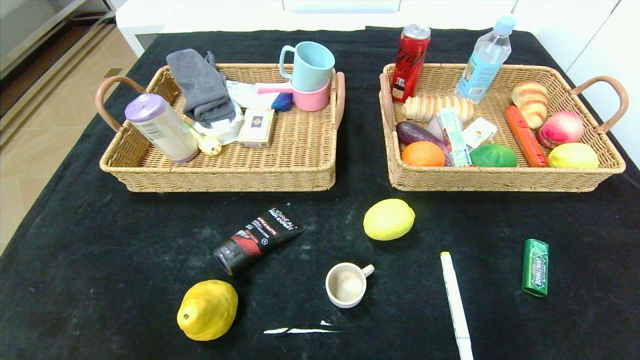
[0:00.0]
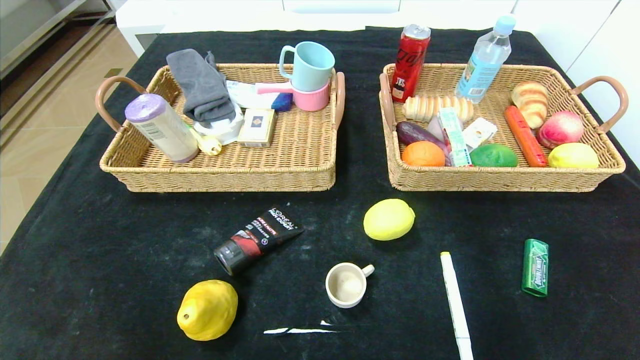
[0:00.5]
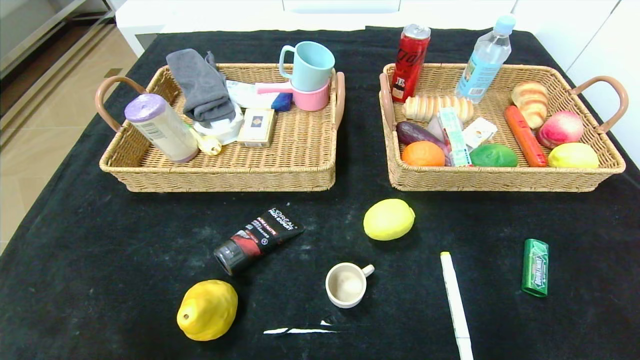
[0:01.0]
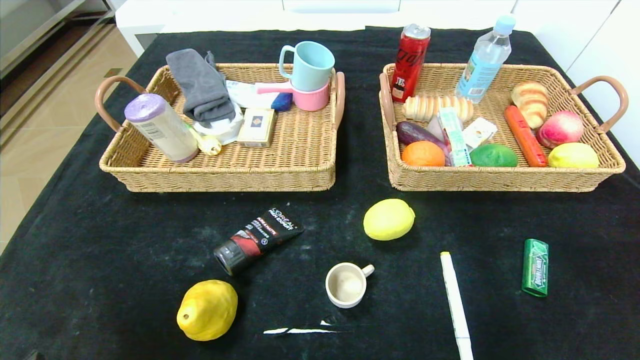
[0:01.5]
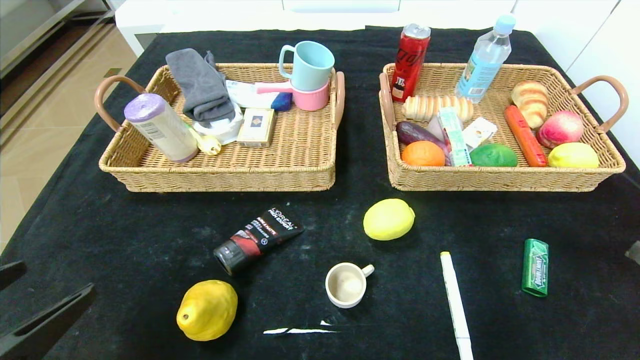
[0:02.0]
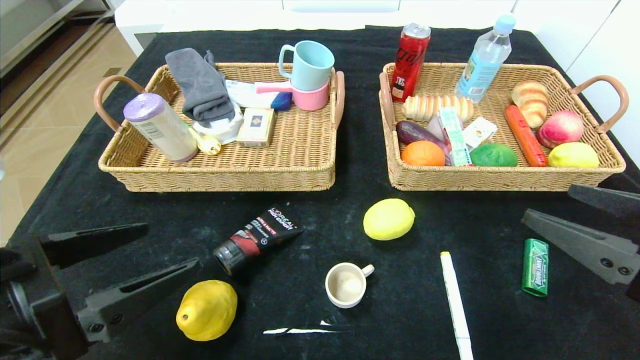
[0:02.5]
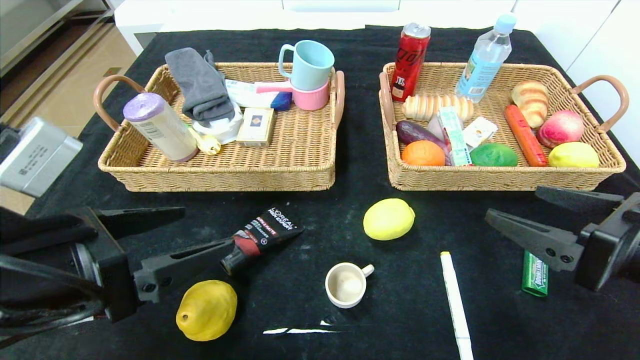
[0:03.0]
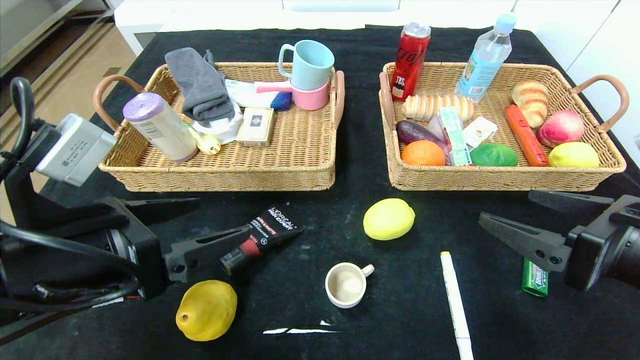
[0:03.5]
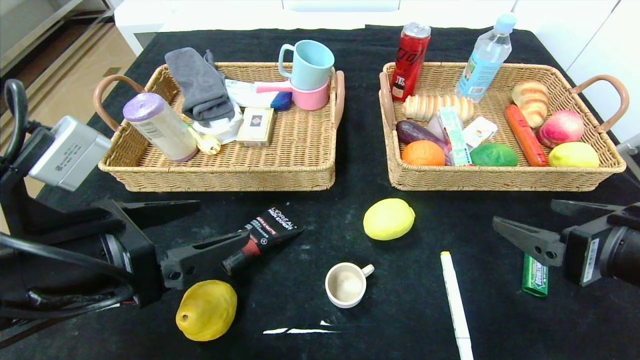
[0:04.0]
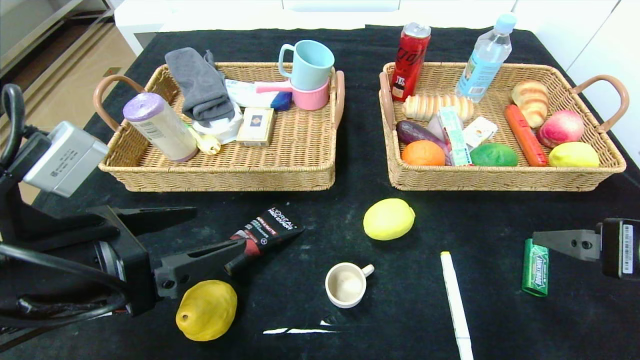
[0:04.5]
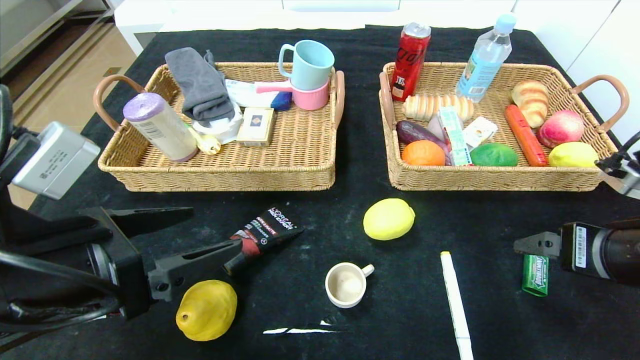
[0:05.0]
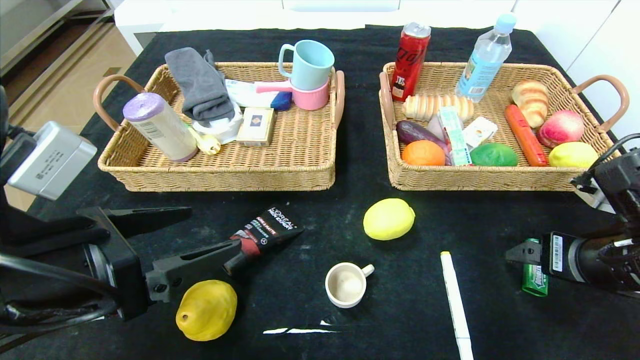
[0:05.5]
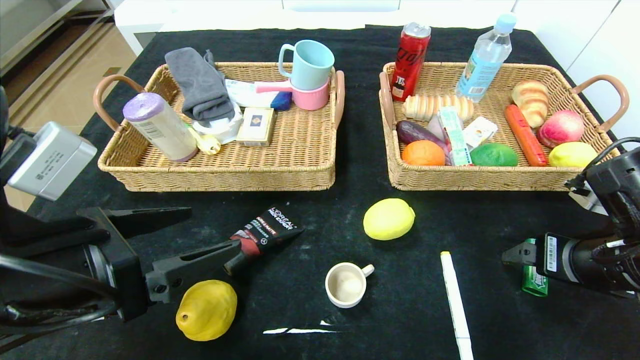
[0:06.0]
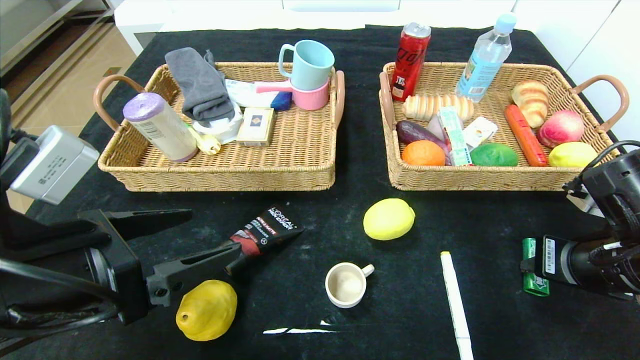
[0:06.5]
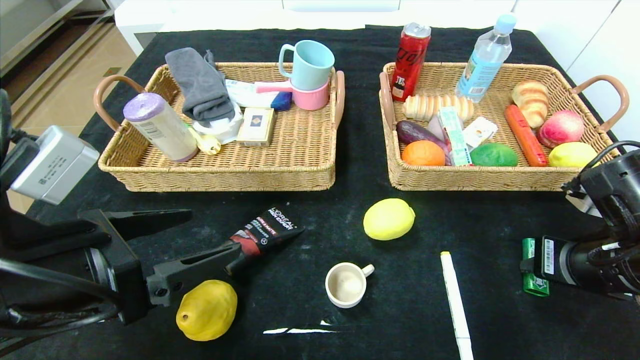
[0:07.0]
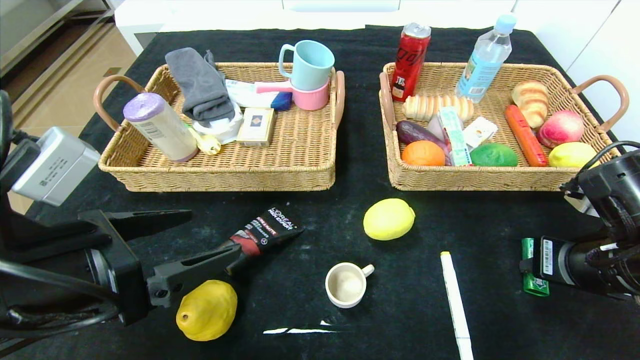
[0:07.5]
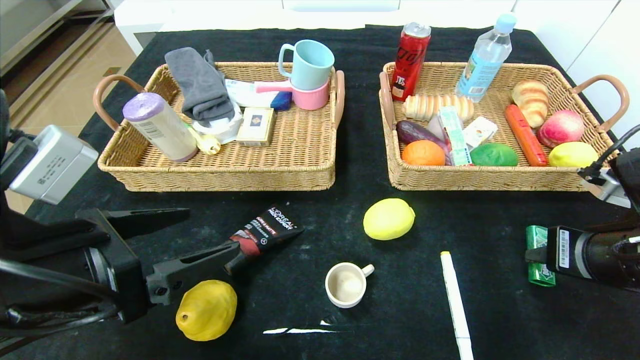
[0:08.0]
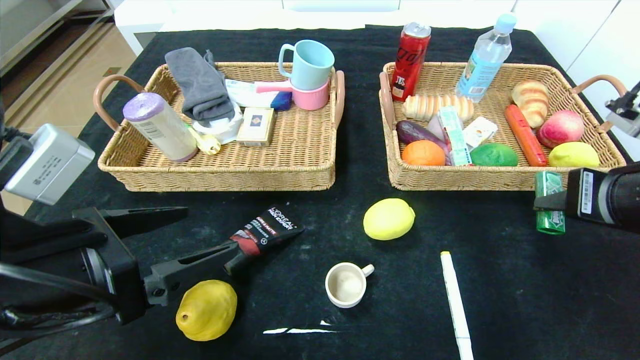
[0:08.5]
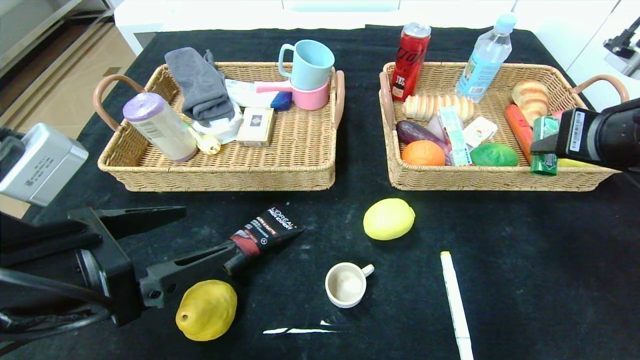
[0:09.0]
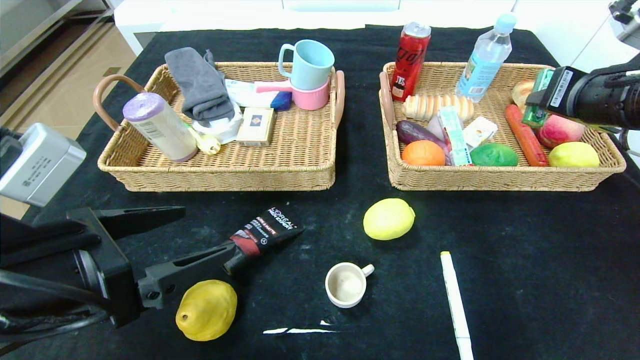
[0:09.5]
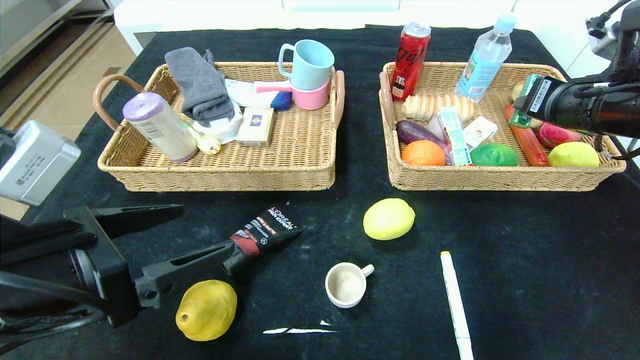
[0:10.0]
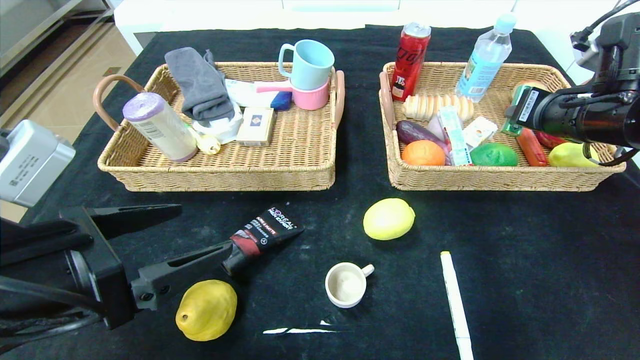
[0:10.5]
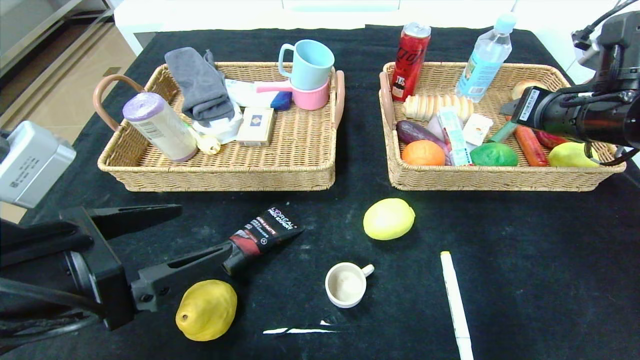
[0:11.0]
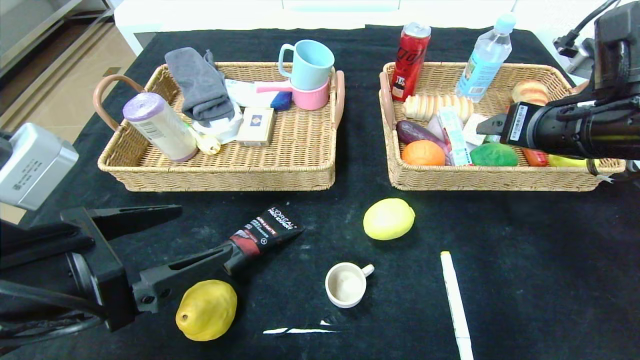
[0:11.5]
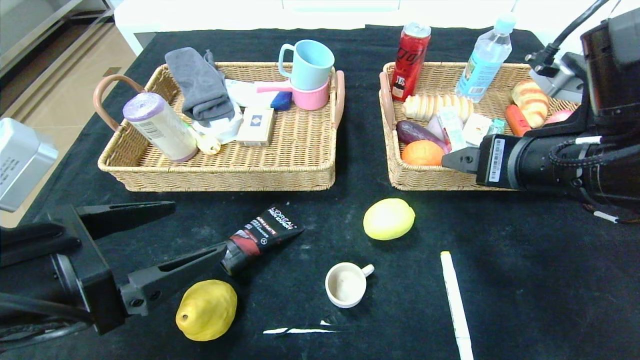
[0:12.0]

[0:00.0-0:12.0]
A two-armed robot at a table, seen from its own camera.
Step, 0:00.0 to 0:11.0: Grasp the green chewing gum and put it in the right basket.
0:00.0 to 0:02.0: The left gripper is displaced upward and forward by roughly 15 cm.
0:02.0 to 0:04.0: The right gripper goes roughly 10 cm forward and to the left. Meanwhile the left gripper travels forward and to the right by roughly 10 cm.
0:04.0 to 0:06.0: The right gripper heads forward, covering some 5 cm.
0:06.0 to 0:08.0: The right gripper closes.
0:08.0 to 0:10.0: The right gripper shifts approximately 15 cm forward and upward.
0:10.0 to 0:12.0: The right gripper moves backward and to the left, roughly 15 cm, and opens its fingers.

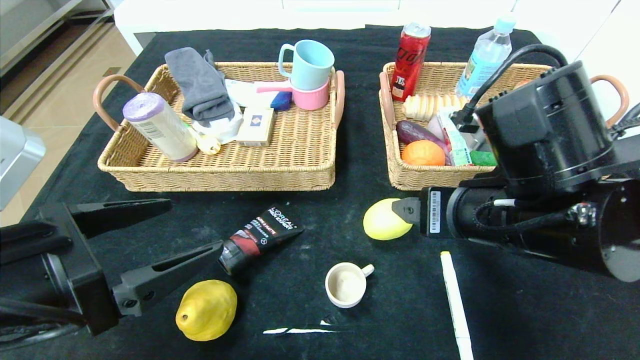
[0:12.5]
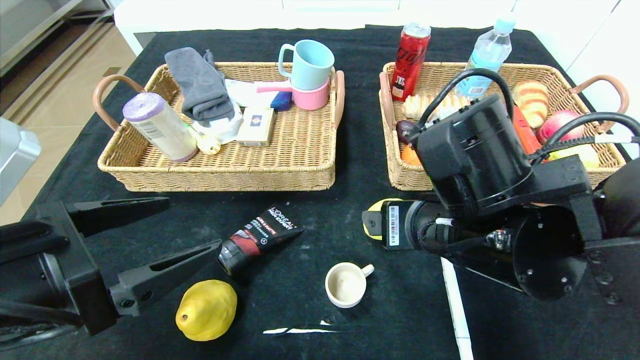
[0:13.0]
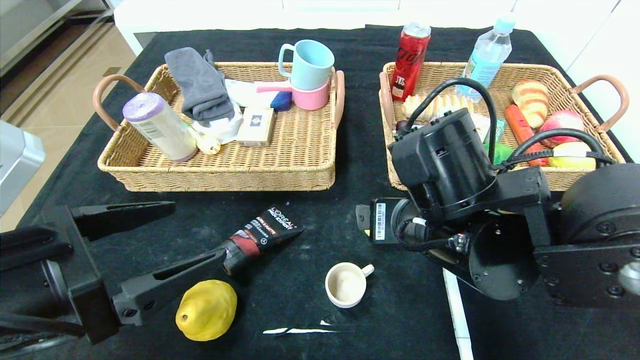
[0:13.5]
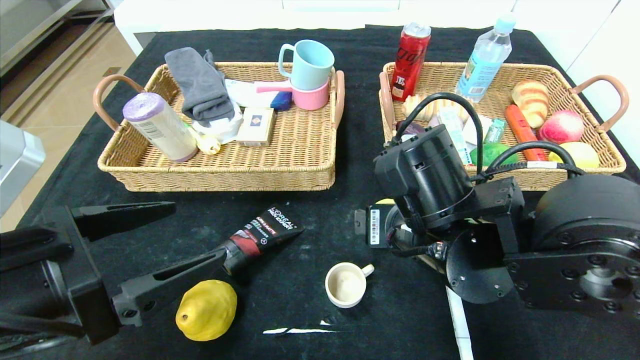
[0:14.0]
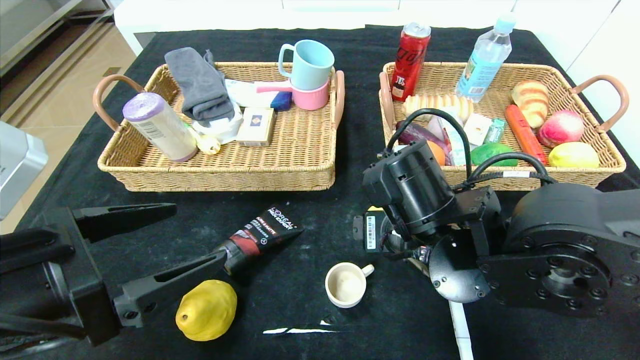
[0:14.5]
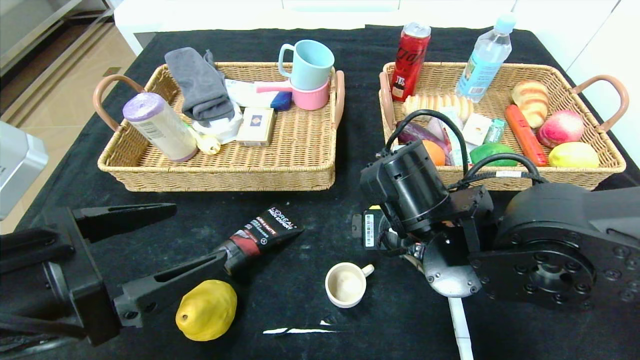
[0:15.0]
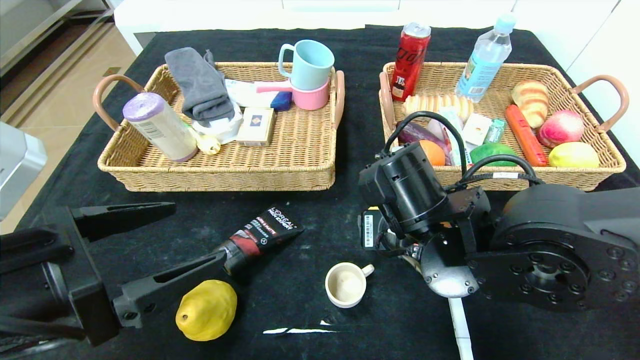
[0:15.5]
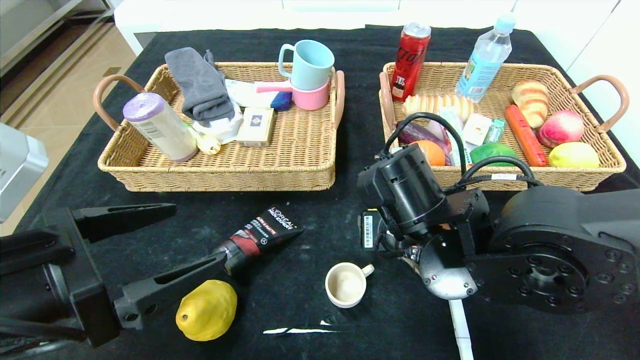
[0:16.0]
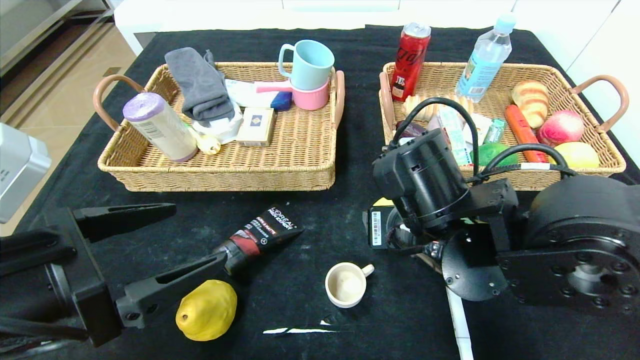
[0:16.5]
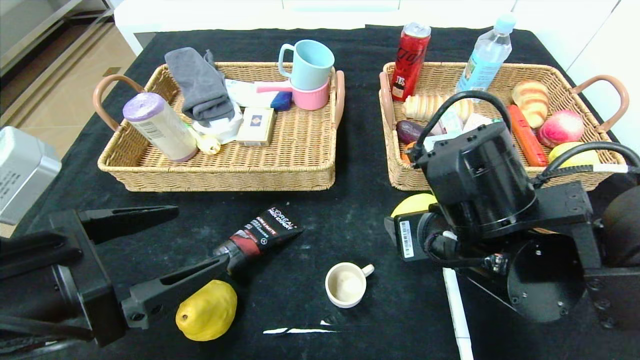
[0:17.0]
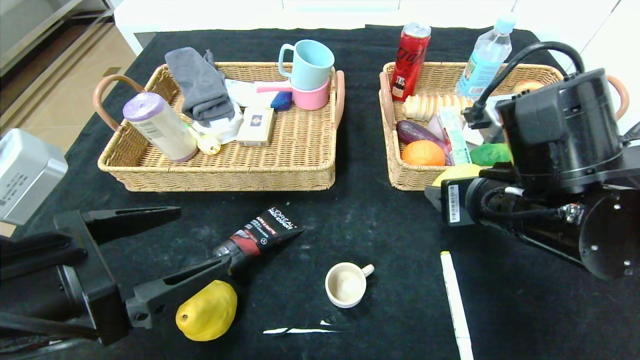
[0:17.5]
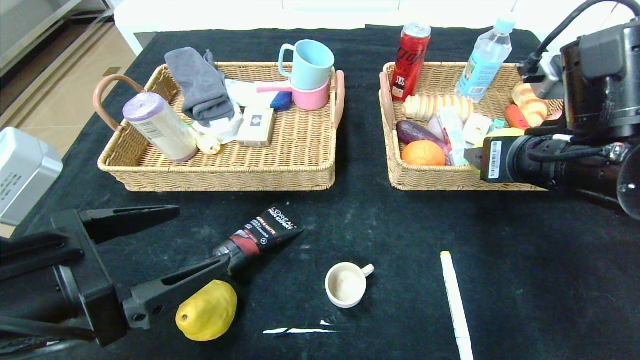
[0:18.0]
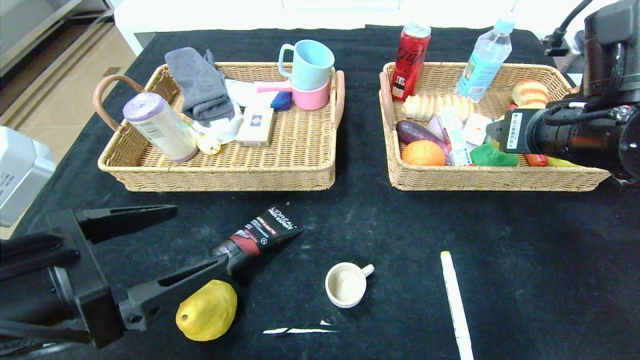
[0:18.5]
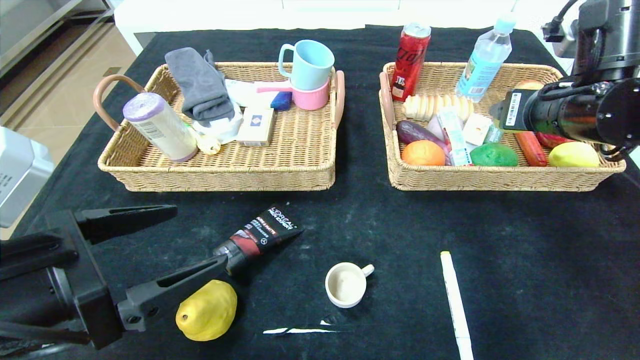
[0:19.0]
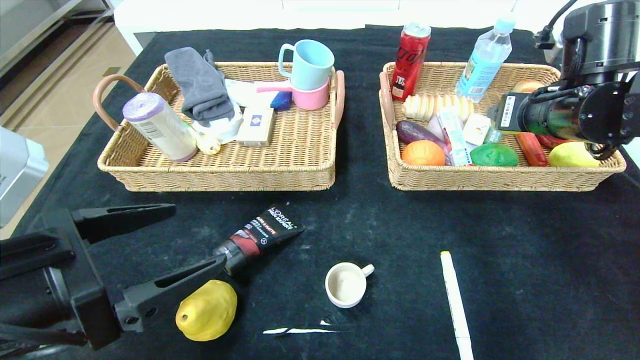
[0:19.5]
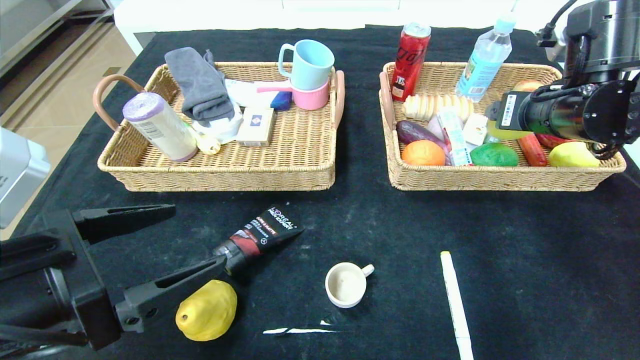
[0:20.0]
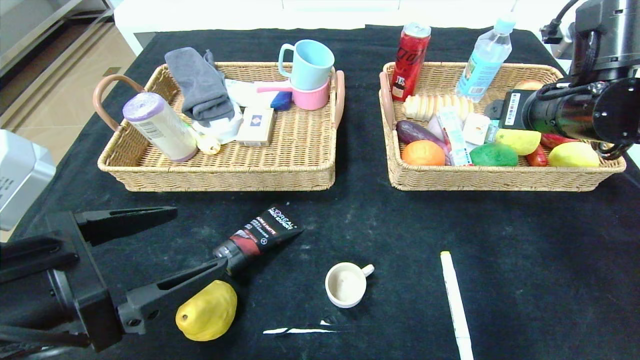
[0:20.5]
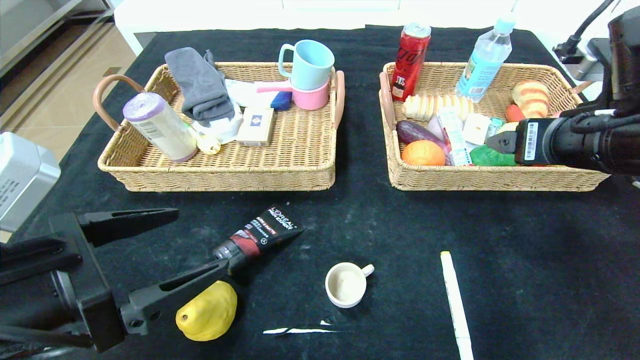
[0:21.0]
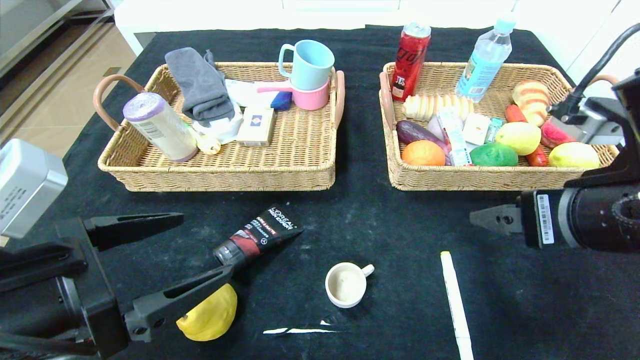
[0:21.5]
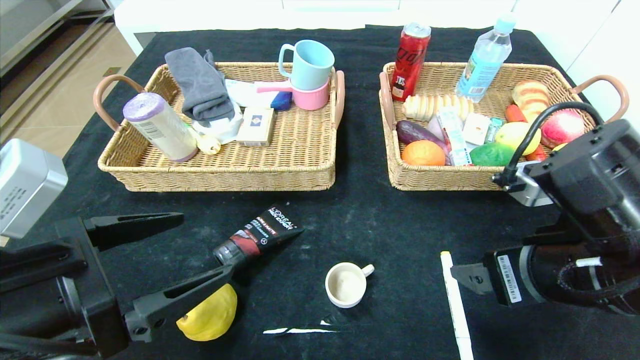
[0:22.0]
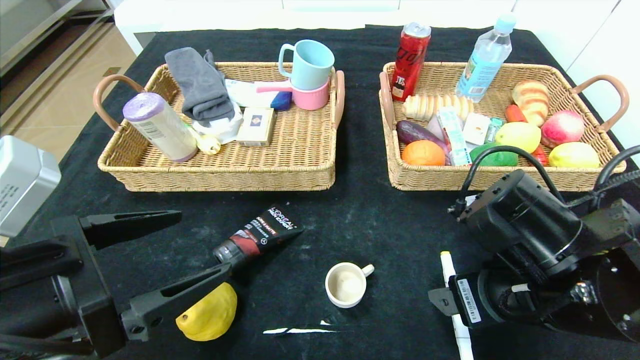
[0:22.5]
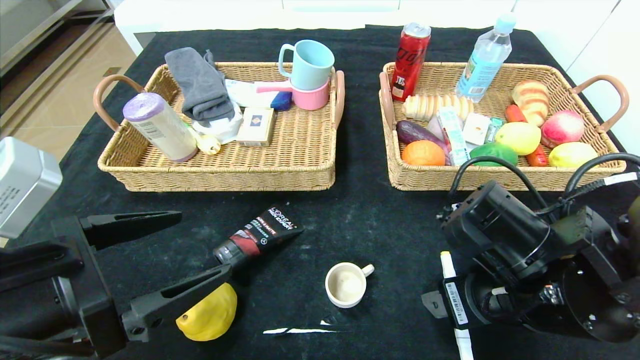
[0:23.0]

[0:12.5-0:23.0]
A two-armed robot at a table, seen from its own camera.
Step, 0:12.5 to 0:20.0: Grasp the lemon and put it in the right basket.
0:12.5 to 0:14.5: The right gripper travels to the left and downward by approximately 10 cm.
0:14.5 to 0:16.5: The grippers stay close to where they were, moving slightly.
0:16.5 to 0:19.0: The right gripper travels to the right, upward and forward by about 20 cm.
0:19.0 to 0:21.0: The right gripper heads backward, covering about 5 cm.
0:21.0 to 0:23.0: The right gripper goes about 15 cm downward, to the left and backward.
